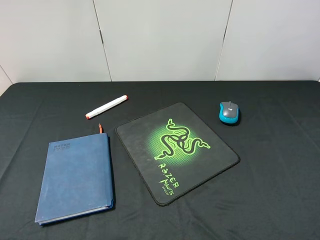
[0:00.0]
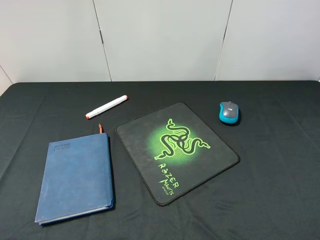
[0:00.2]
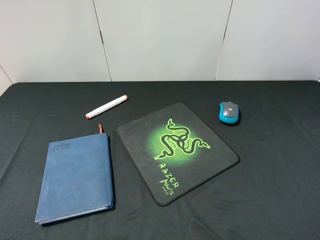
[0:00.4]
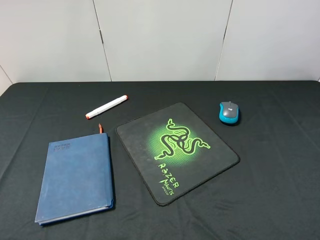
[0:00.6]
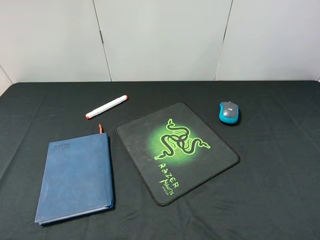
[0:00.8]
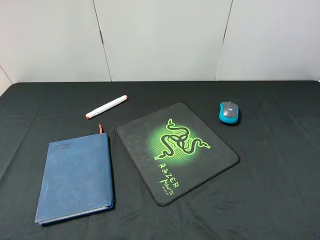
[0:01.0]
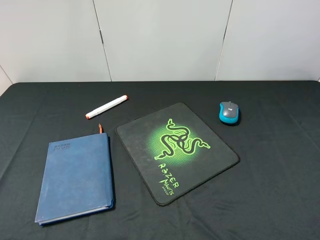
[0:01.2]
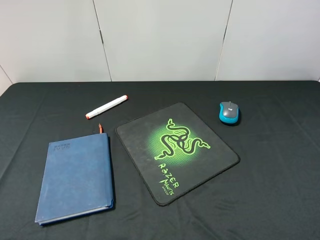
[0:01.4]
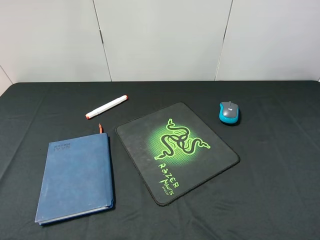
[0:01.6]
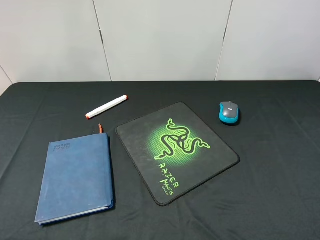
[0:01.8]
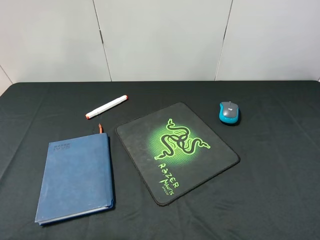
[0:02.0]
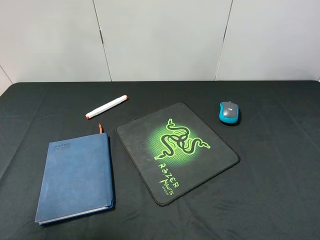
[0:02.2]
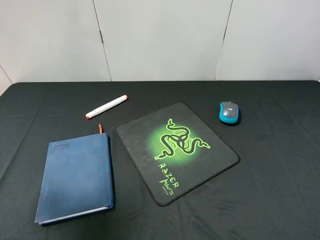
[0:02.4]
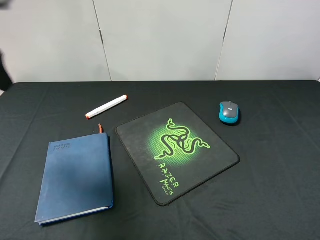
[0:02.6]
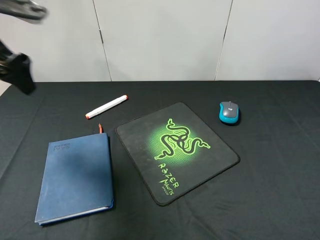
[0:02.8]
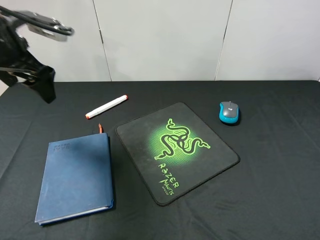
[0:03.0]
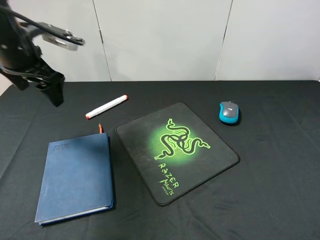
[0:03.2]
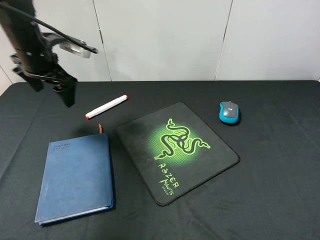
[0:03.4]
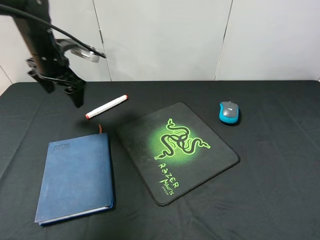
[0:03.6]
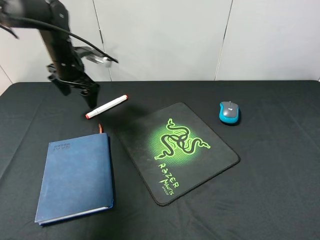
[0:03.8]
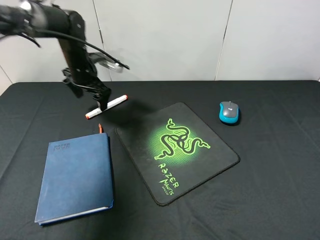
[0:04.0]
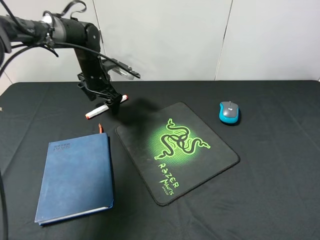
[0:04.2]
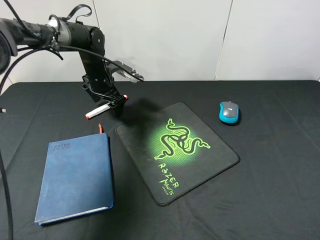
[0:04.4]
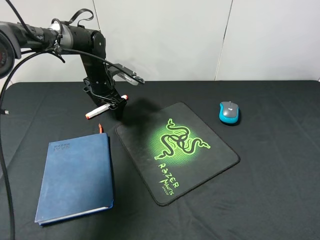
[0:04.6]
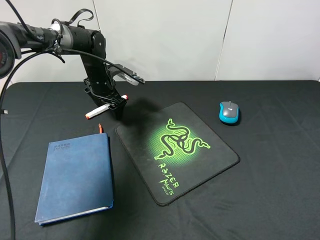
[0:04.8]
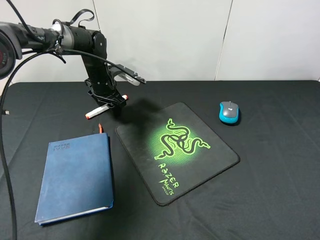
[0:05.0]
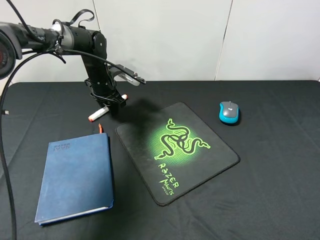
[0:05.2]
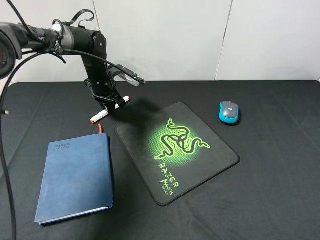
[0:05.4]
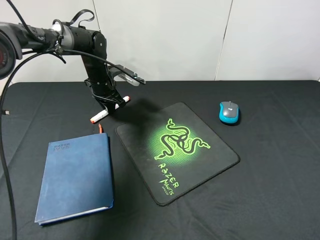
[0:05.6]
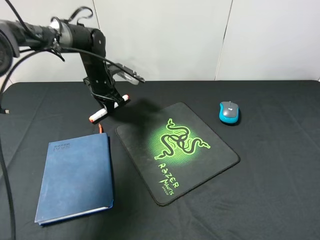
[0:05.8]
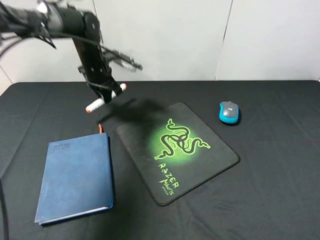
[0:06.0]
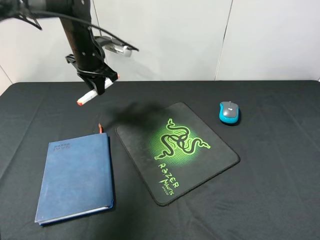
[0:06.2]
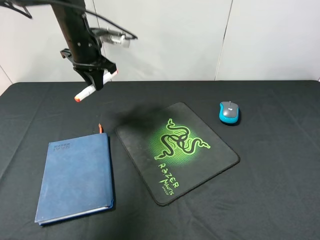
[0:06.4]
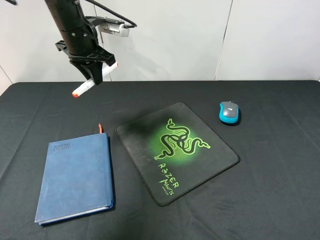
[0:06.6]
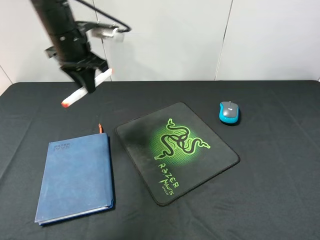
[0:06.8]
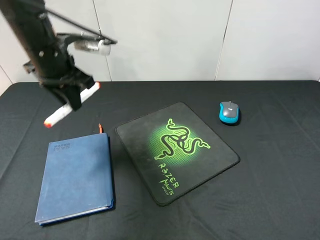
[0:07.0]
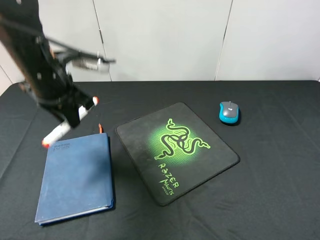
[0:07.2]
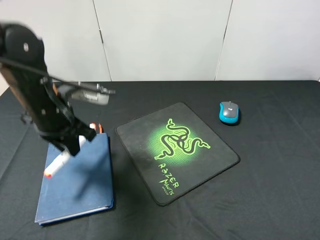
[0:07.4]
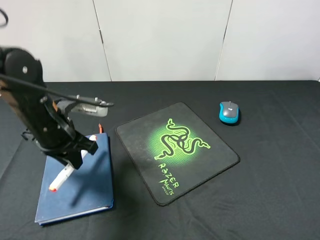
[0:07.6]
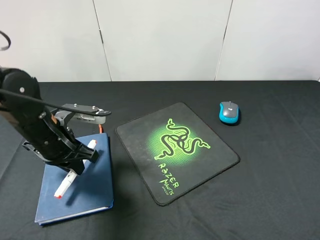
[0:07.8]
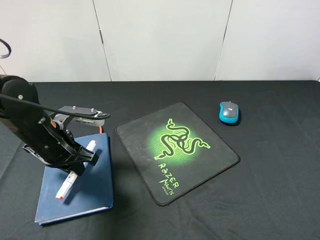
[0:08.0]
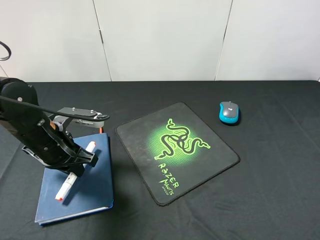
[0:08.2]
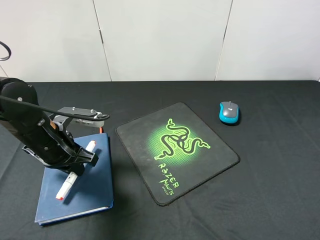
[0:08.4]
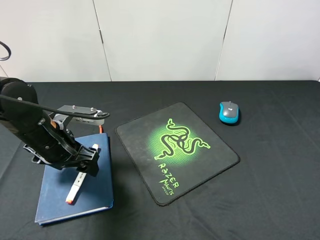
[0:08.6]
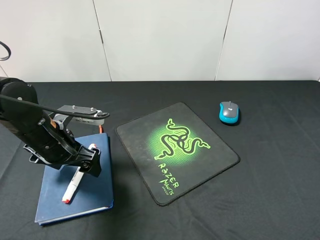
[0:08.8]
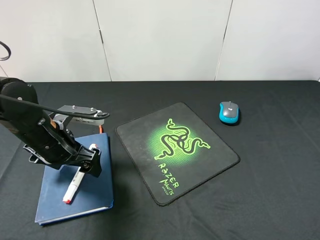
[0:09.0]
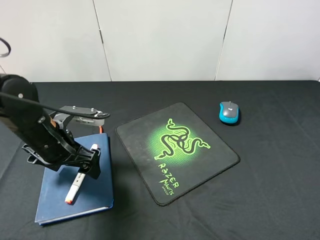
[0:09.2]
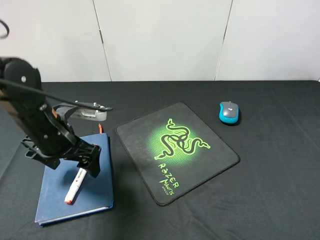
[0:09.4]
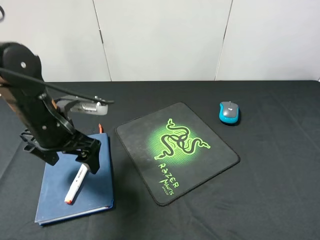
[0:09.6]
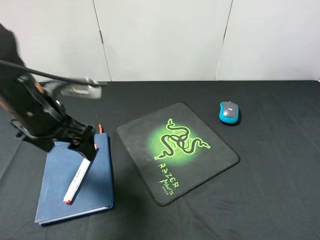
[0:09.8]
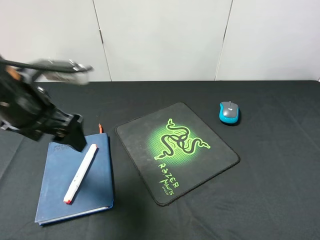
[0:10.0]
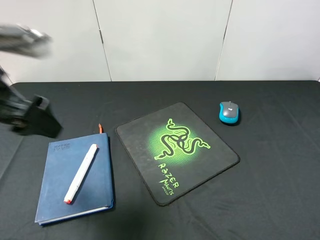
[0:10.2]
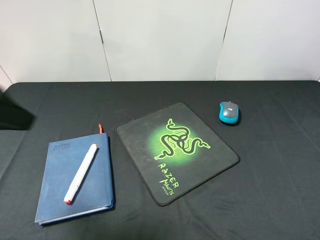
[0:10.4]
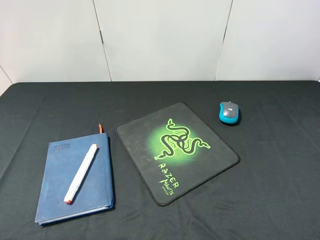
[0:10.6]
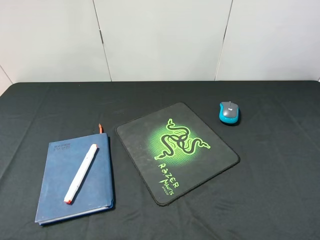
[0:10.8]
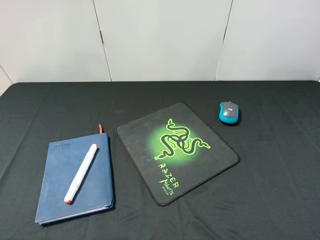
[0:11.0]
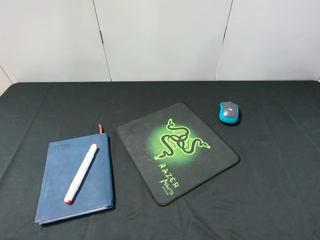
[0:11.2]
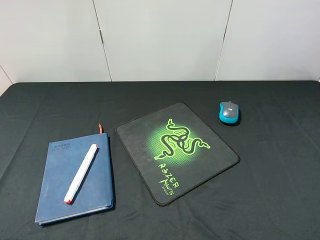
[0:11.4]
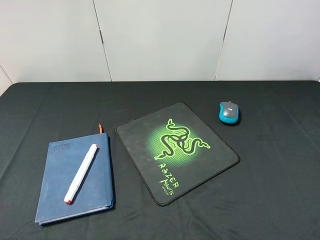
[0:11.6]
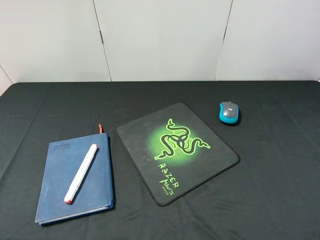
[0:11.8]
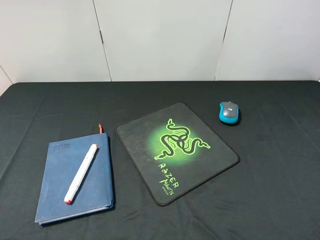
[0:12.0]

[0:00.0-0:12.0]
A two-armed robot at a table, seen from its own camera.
Step, 0:00.0 to 0:06.0: Pick up the marker pen with left gripper.
Step, 0:06.2 to 0:09.4: Place the marker pen on the notebook with left gripper.
0:01.6 to 0:03.0: The left gripper shifts roughly 30 cm forward.
0:03.0 to 0:04.4: The left gripper shifts about 25 cm downward, forward and to the right.
0:04.4 to 0:06.0: The left gripper closes its fingers.
0:06.0 to 0:07.6: The left gripper goes approximately 20 cm backward.
0:07.6 to 0:09.0: The left gripper opens up.
0:09.0 to 0:10.4: The left gripper shifts approximately 25 cm upward and backward.
0:10.4 to 0:12.0: The left gripper goes about 15 cm backward, to the left and downward.

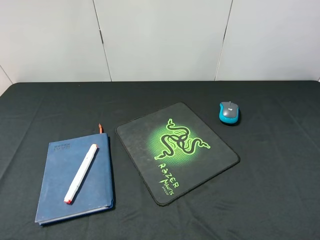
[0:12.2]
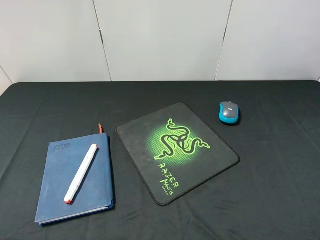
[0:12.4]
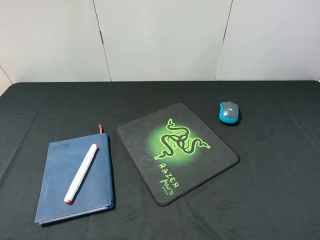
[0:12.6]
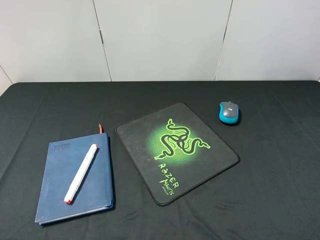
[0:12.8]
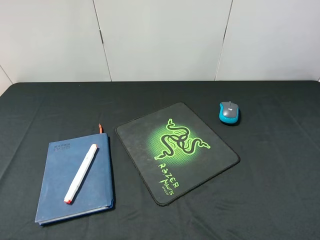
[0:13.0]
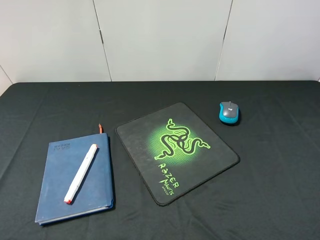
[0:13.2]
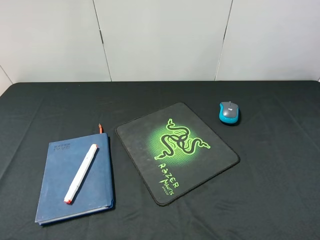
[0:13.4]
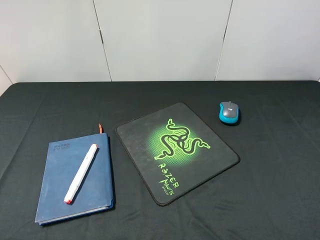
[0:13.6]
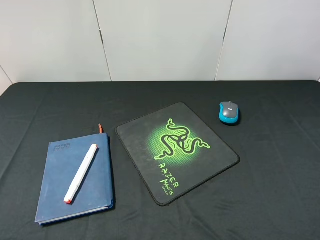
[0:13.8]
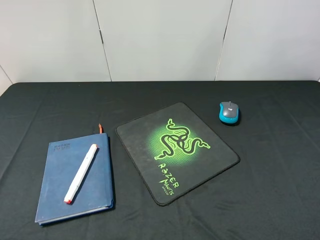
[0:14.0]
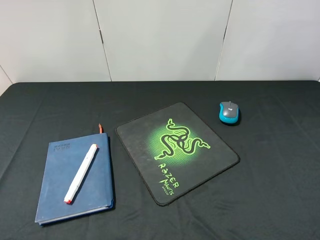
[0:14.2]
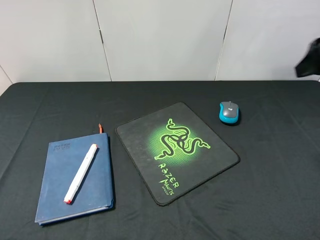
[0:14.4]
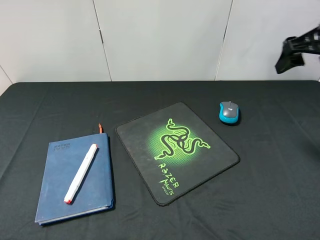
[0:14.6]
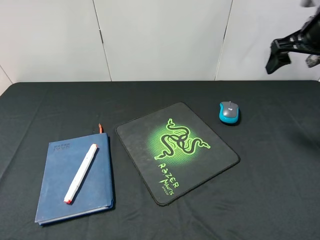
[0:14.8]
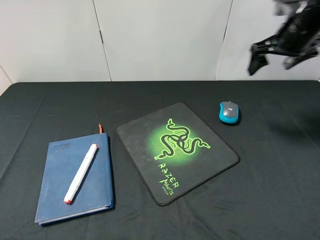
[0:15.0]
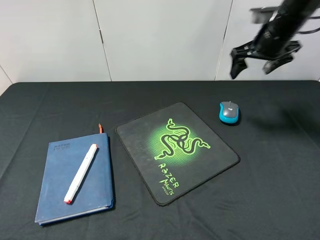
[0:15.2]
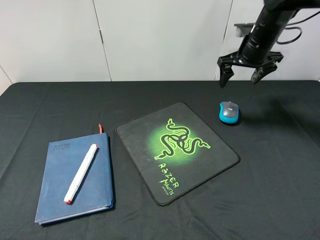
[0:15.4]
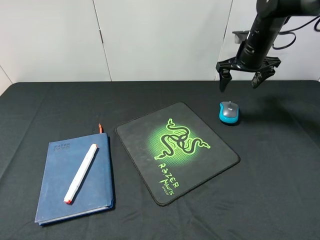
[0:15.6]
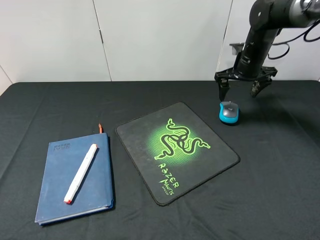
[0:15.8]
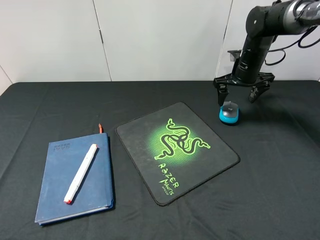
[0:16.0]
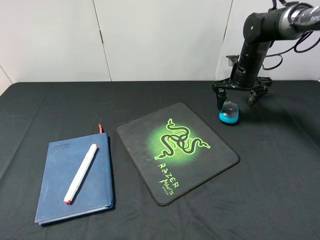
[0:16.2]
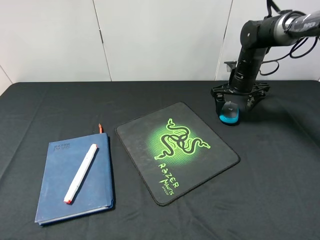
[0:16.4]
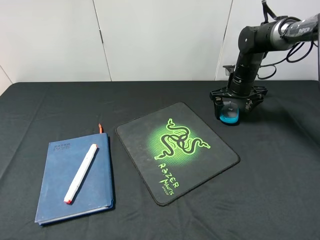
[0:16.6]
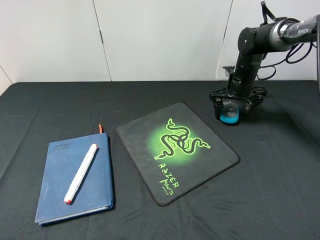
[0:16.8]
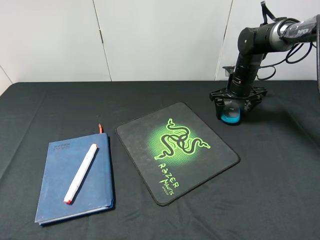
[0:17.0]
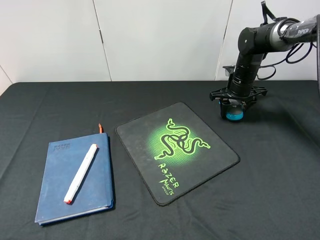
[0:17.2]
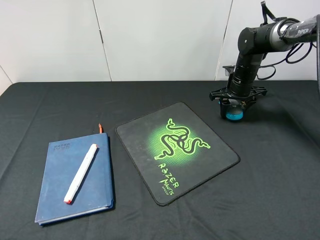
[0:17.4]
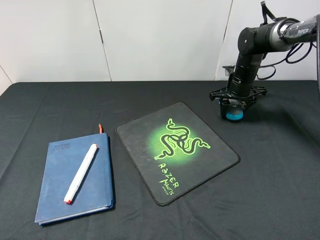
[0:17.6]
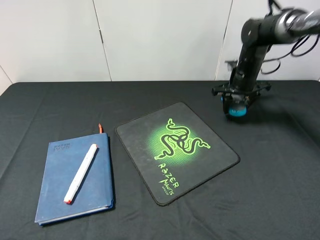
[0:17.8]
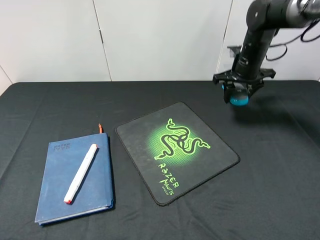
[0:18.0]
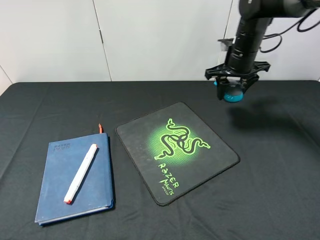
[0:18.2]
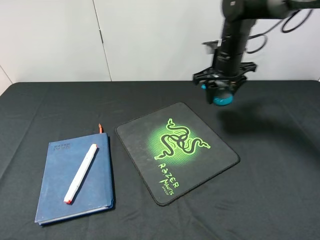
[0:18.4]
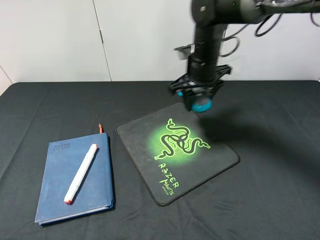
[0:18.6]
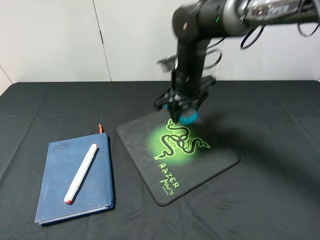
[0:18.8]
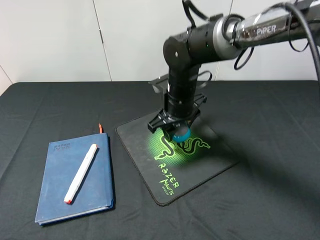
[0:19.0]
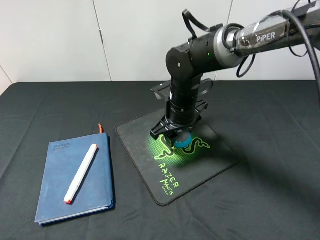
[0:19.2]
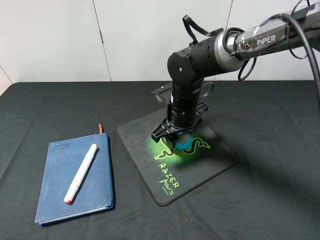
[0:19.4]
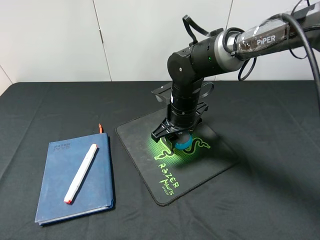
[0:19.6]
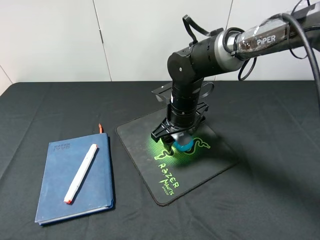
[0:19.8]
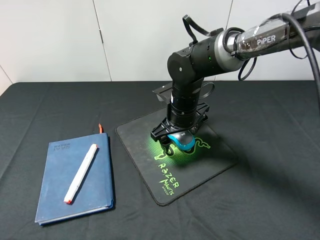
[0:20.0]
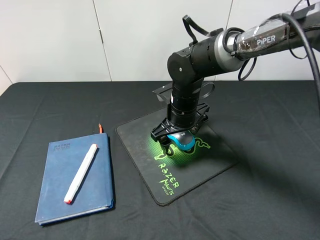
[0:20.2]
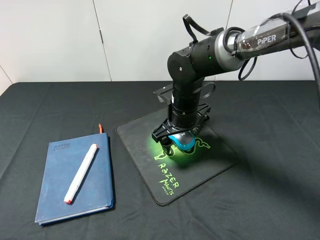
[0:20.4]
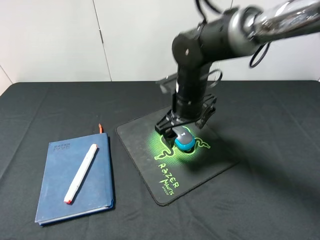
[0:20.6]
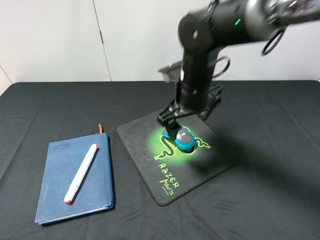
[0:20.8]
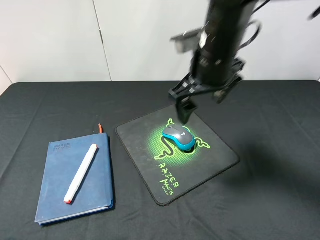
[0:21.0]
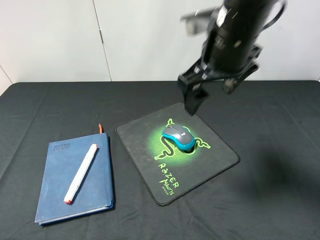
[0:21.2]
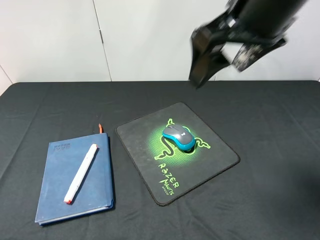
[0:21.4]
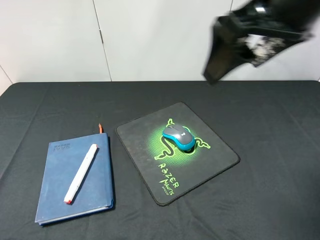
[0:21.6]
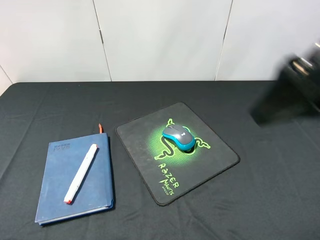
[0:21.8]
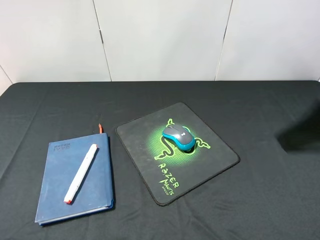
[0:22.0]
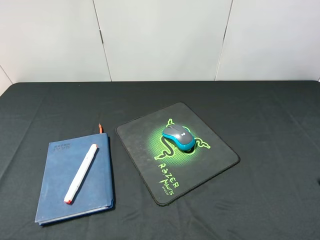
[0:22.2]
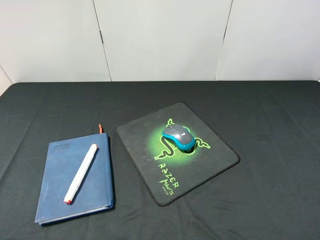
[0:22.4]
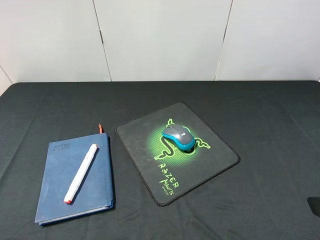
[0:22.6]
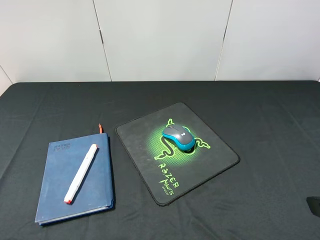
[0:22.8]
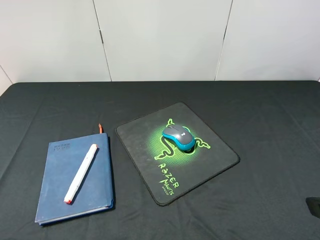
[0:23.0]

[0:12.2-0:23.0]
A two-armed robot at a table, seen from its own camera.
Step, 0:12.2 to 0:18.0: Pick up the mouse with right gripper.
Step, 0:18.2 to 0:20.6: Place the mouse on the mouse pad with right gripper.
0:13.8 to 0:15.2: The right gripper heads forward, covering approximately 40 cm.
0:15.2 to 0:16.8: The right gripper is displaced downward by approximately 15 cm.
0:16.8 to 0:18.4: The right gripper is displaced upward and to the left by about 10 cm, and closes its fingers.
0:18.4 to 0:20.0: The right gripper moves to the left, backward and downward, about 15 cm, and opens.
0:20.0 to 0:21.4: The right gripper travels upward and backward by approximately 25 cm.
0:21.4 to 0:23.0: The right gripper shifts approximately 25 cm backward, to the right and downward.
